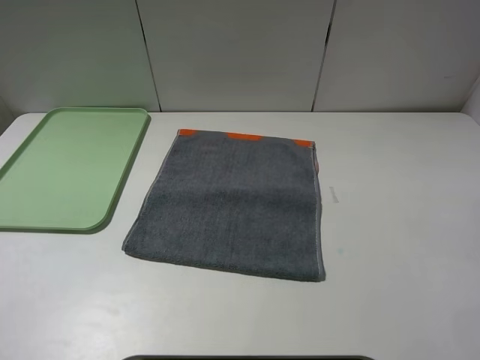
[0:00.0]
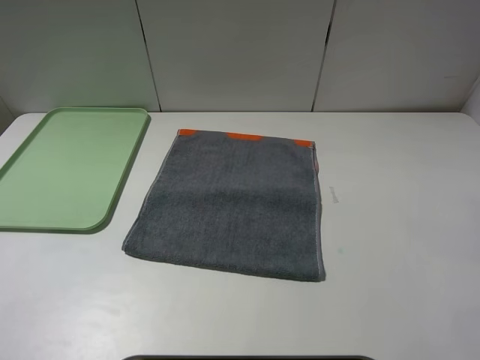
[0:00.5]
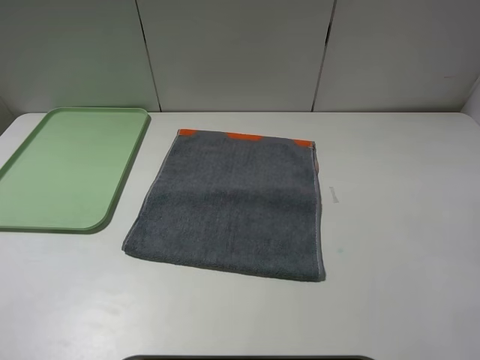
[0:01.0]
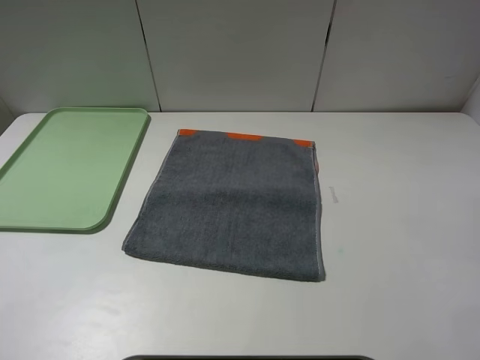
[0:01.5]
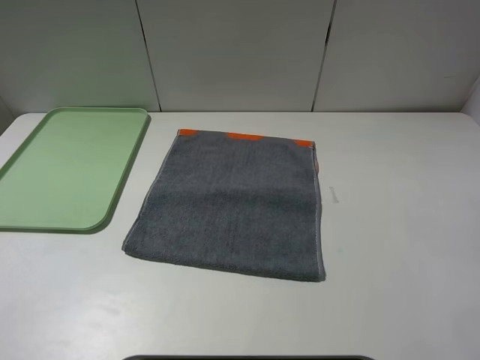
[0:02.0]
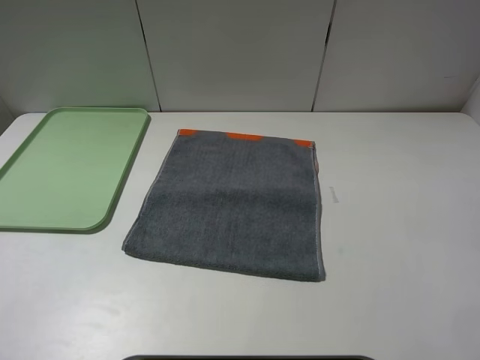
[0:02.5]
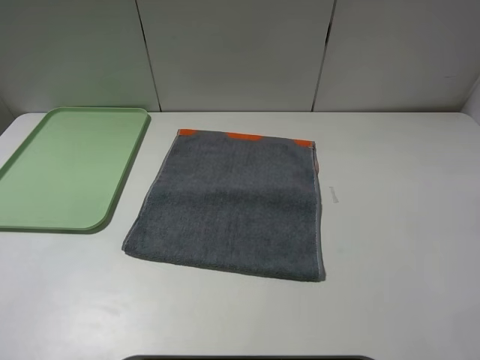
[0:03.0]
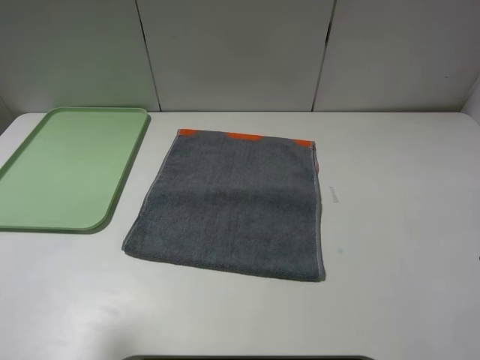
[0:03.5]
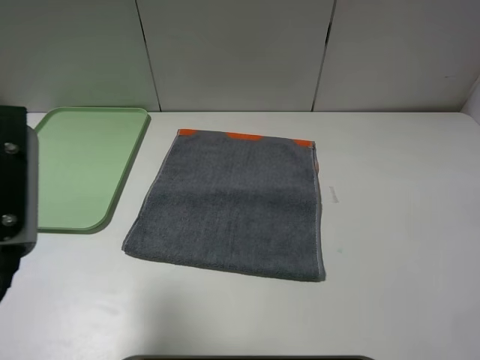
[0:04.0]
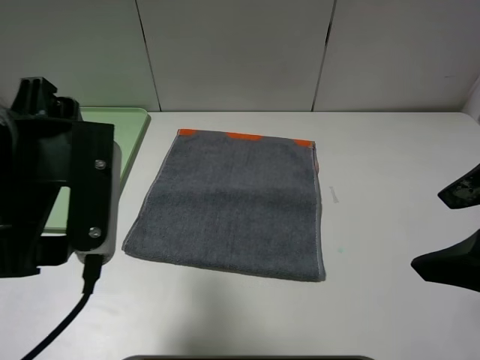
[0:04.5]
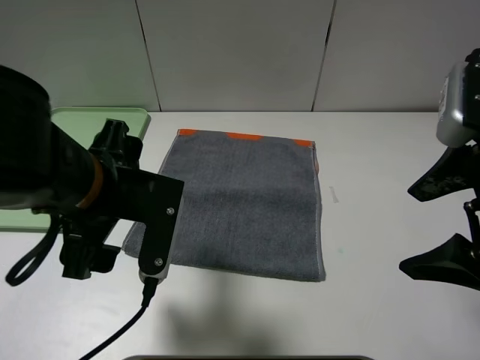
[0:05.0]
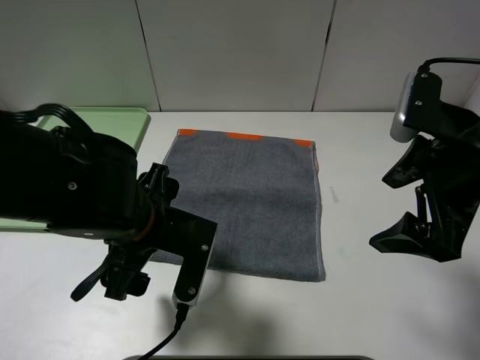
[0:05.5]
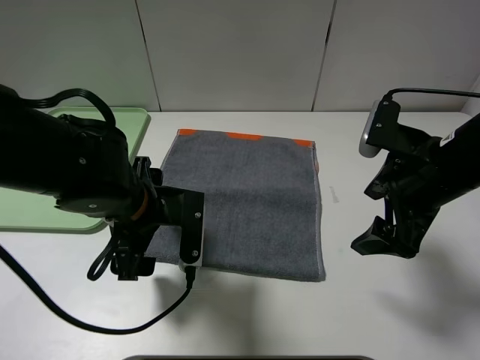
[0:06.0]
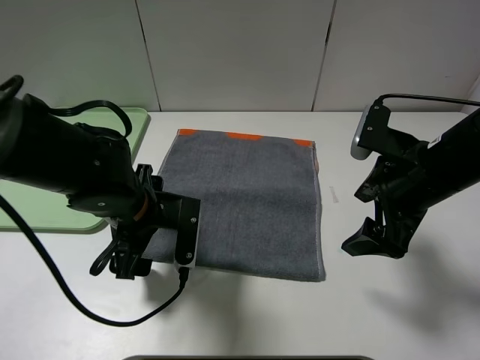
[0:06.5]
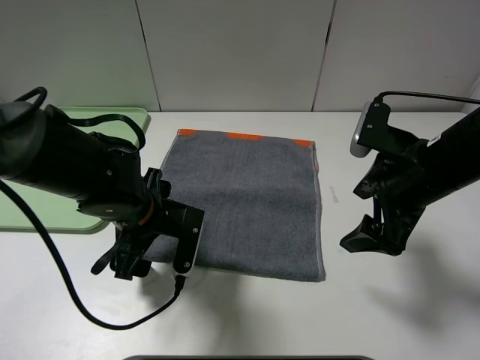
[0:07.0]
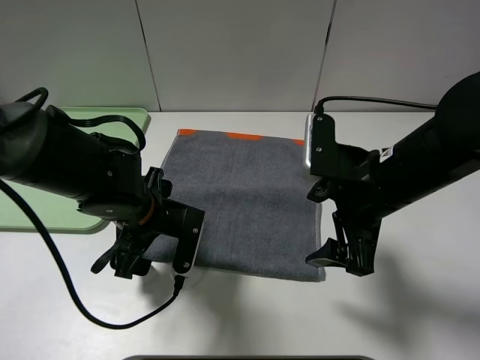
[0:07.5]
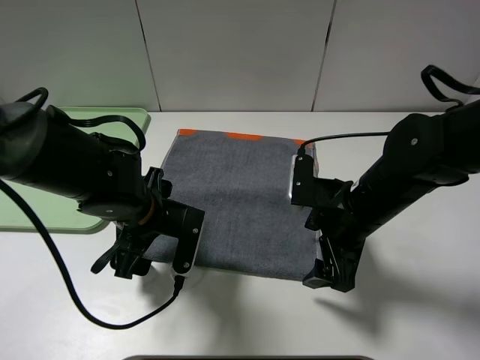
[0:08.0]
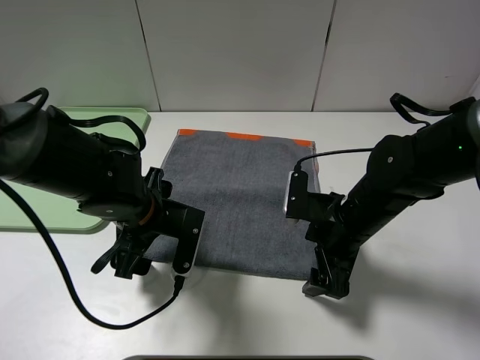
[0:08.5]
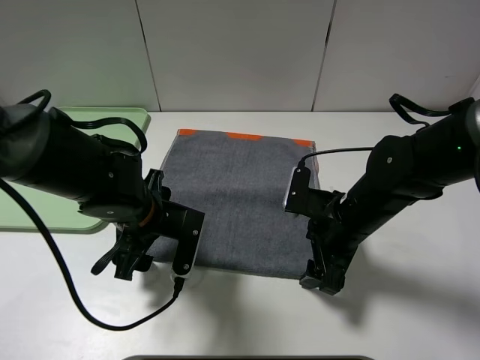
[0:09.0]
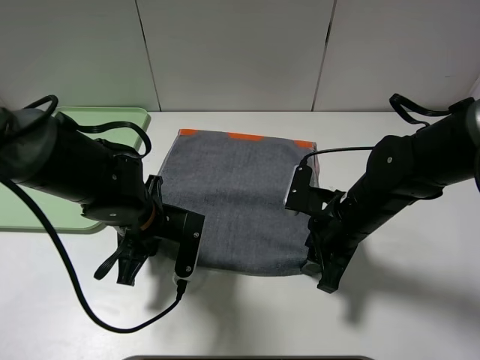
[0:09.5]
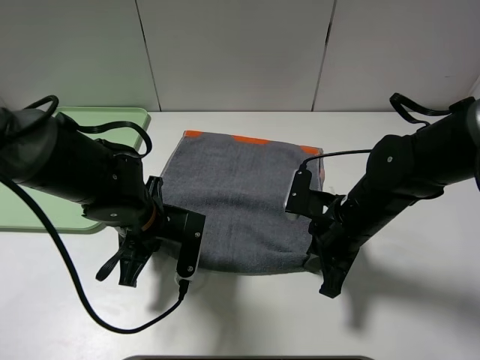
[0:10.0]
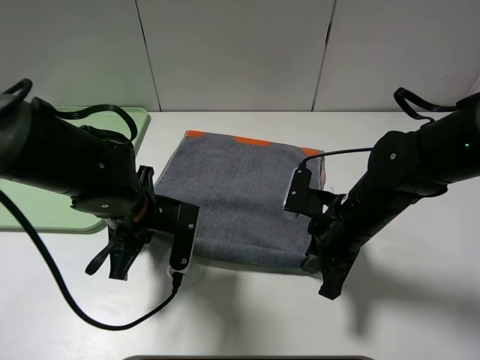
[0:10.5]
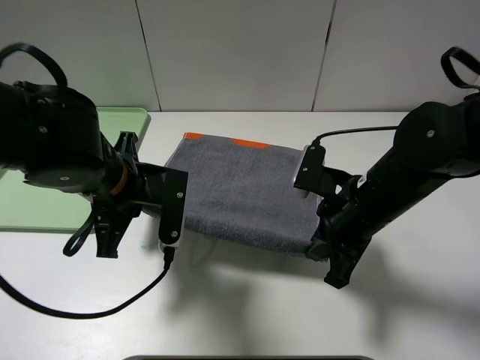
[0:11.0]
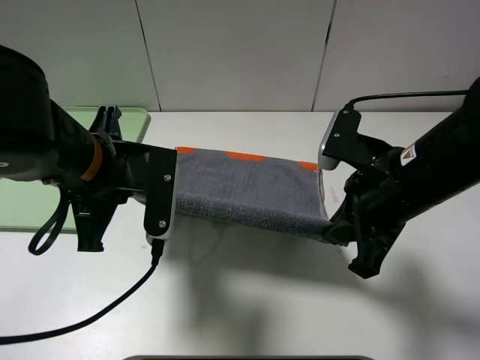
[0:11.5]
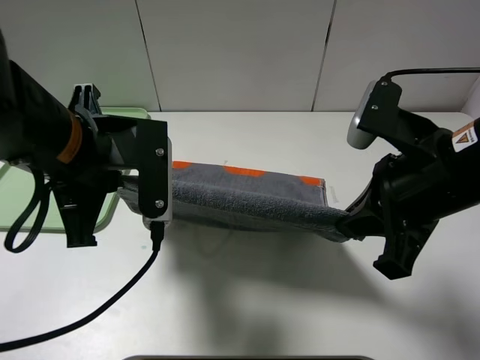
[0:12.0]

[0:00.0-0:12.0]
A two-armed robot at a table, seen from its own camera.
0:00.0 to 0:02.0: Neither gripper changes place.
0:02.0 to 0:04.0: The left gripper travels forward and to the right by approximately 15 cm, while the right gripper goes some 5 cm forward.
0:04.0 to 0:06.0: The right gripper heads forward and downward, covering about 20 cm; the left gripper shifts some 20 cm downward, to the right and forward.
0:06.0 to 0:08.0: The right gripper heads downward and to the left, covering about 10 cm.
0:08.0 to 0:10.0: The right gripper closes its fingers. Meanwhile the left gripper closes its fingers.
0:10.0 to 0:12.0: The right gripper travels upward and backward by some 15 cm; the left gripper shifts roughly 15 cm upward.

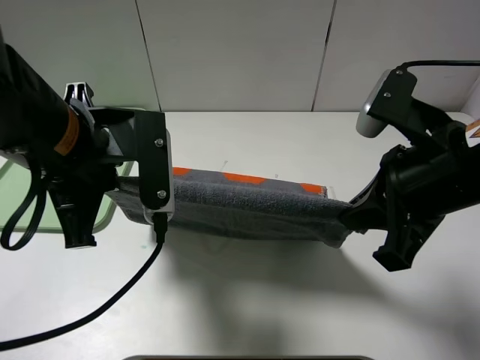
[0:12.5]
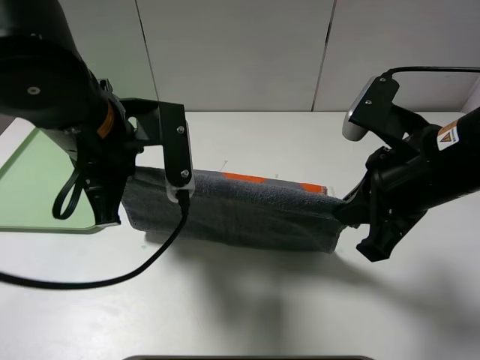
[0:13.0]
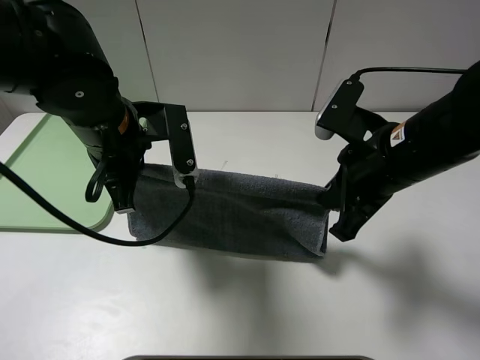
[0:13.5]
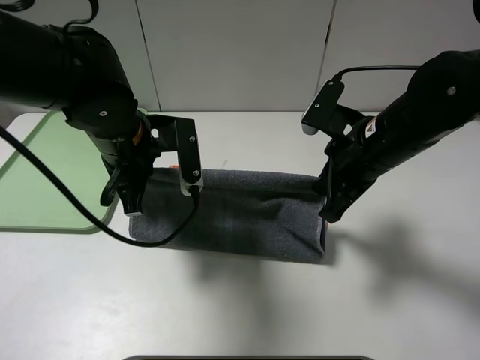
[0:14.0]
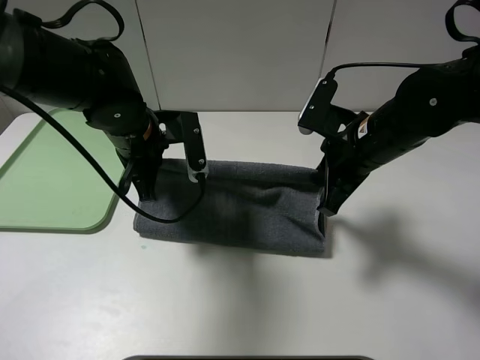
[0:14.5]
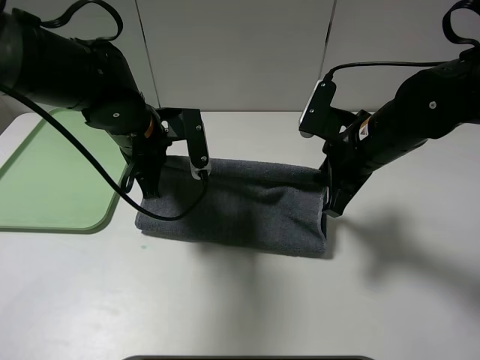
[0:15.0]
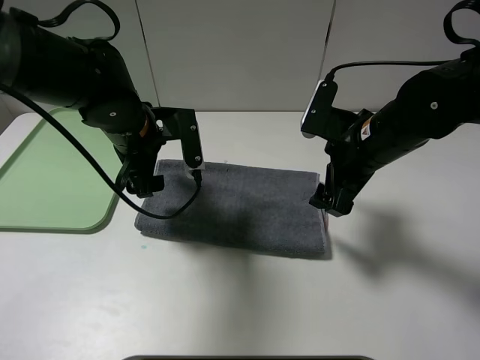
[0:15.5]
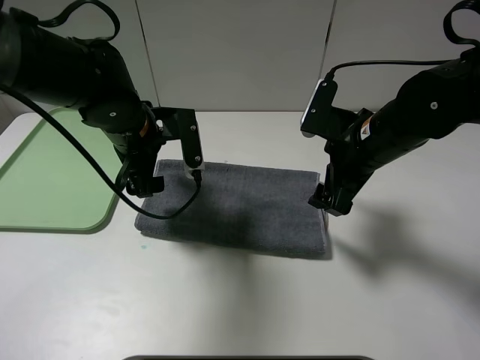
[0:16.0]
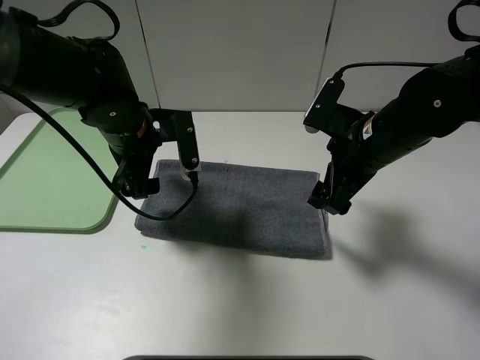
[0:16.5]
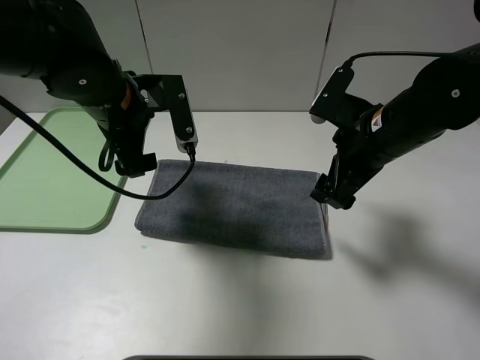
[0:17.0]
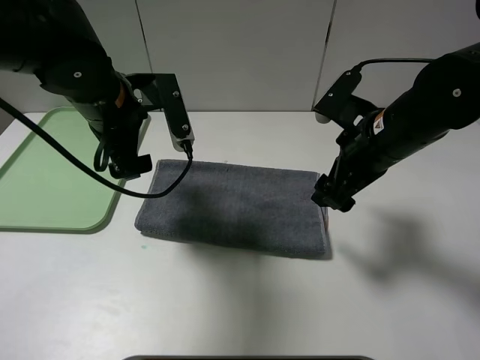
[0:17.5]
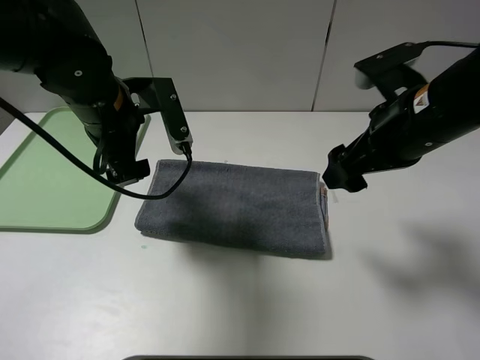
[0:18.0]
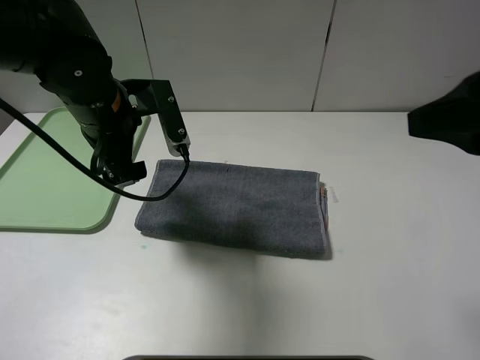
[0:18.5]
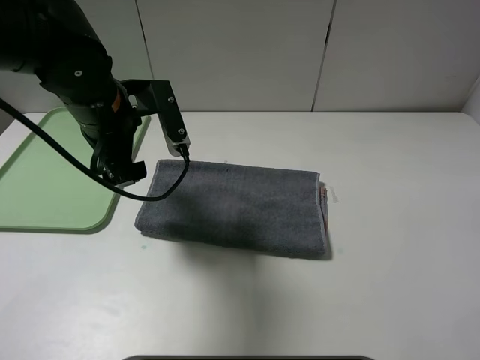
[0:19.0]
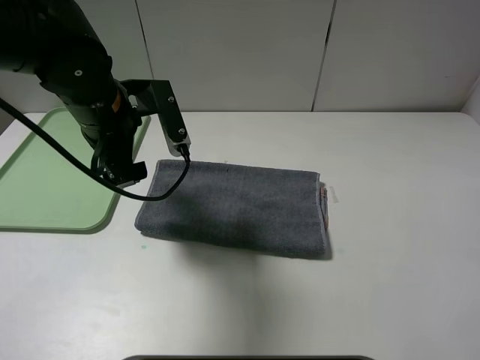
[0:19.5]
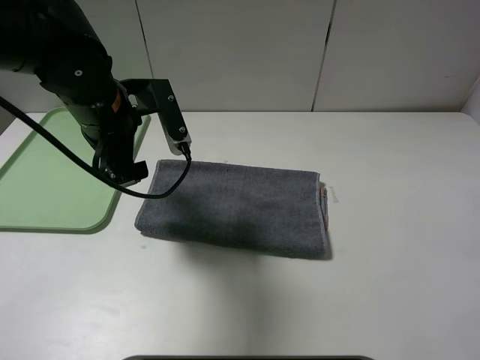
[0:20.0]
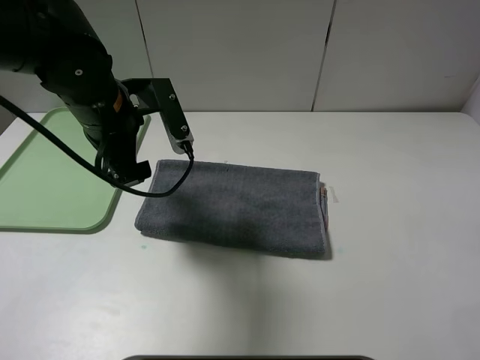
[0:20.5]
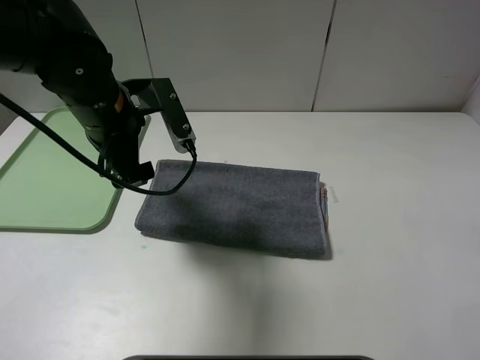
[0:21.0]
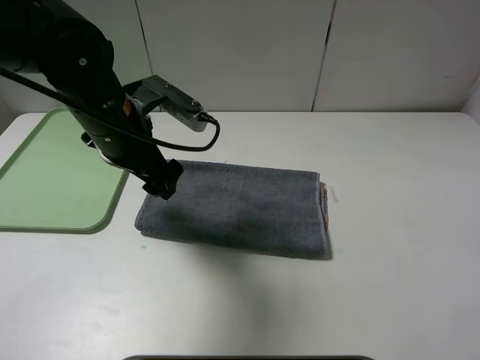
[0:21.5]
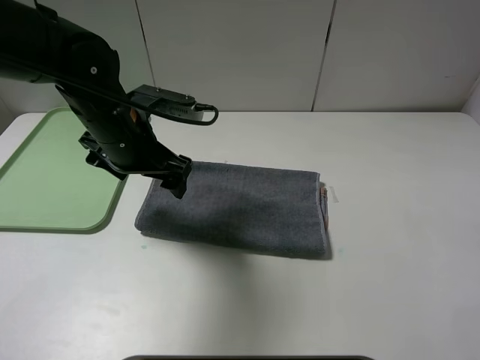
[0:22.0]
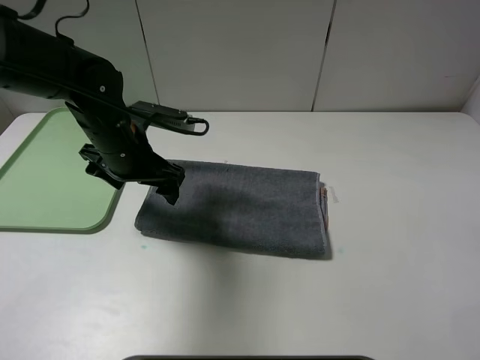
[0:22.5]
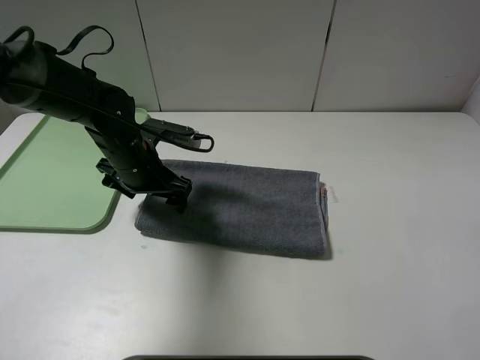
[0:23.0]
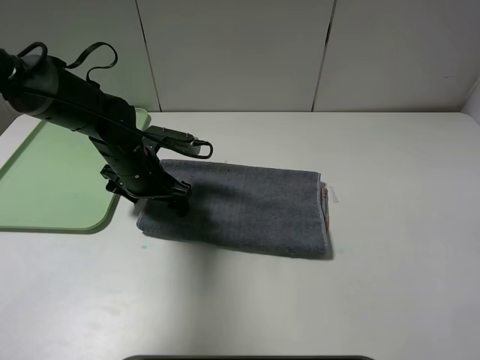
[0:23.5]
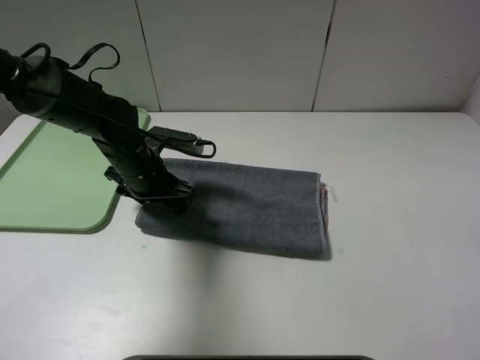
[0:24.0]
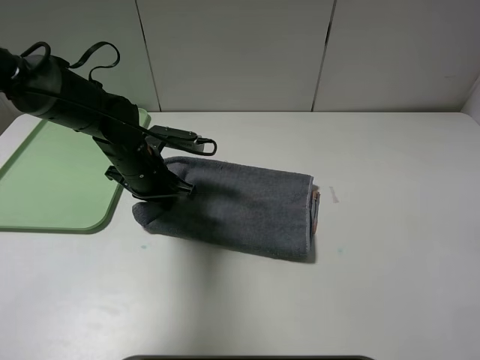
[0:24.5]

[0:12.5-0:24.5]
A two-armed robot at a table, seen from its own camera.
Step, 0:12.5 to 0:15.5: Fold the grey towel upwards.
0:12.5 to 0:14.5: Both grippers travel together forward and downward, roughly 15 cm.
0:14.5 to 0:16.5: The left gripper opens up, while the right gripper opens.
0:16.5 to 0:18.5: The left gripper moves about 5 cm. Meanwhile the right gripper shifts some 20 cm upward, backward and to the right.
0:18.5 to 0:20.5: The right gripper is displaced backward, to the right and downward by some 15 cm.
0:20.5 to 0:22.5: The left gripper moves downward, about 5 cm.
0:22.5 to 0:24.5: The left gripper heads downward, covering some 5 cm, and closes up.

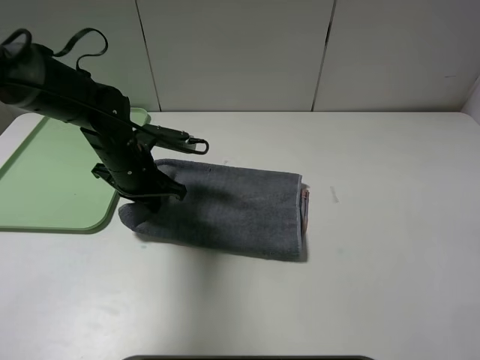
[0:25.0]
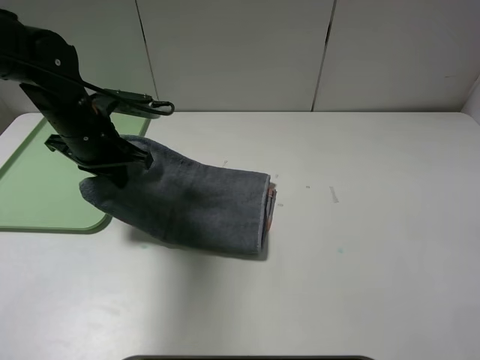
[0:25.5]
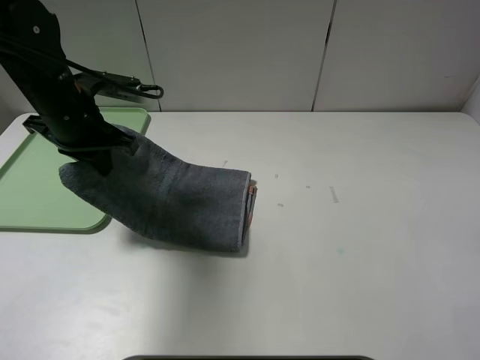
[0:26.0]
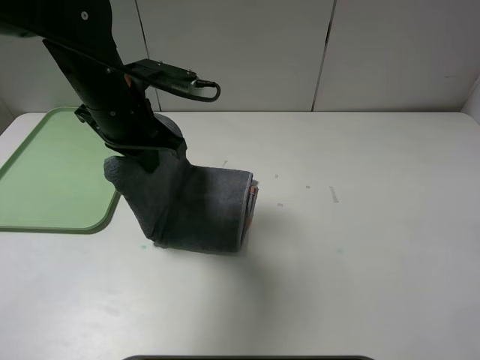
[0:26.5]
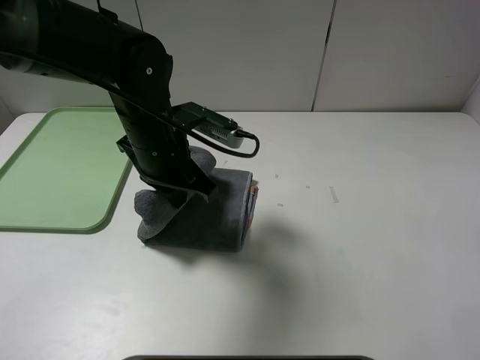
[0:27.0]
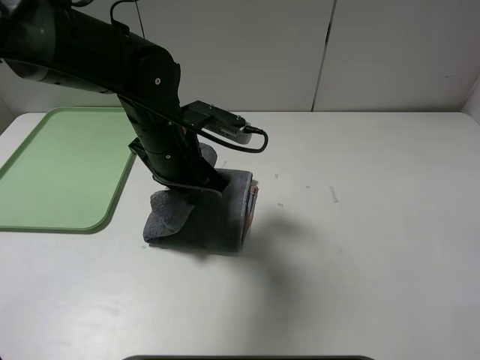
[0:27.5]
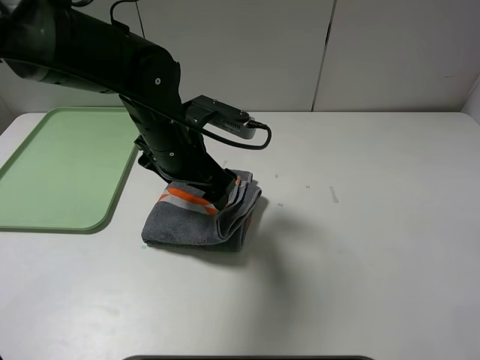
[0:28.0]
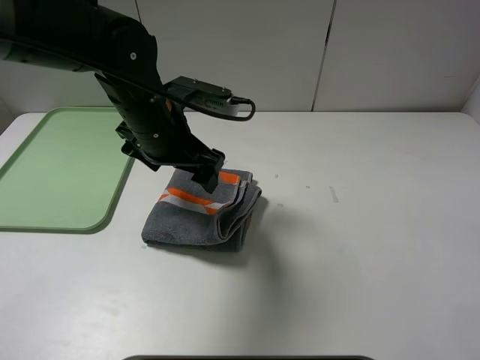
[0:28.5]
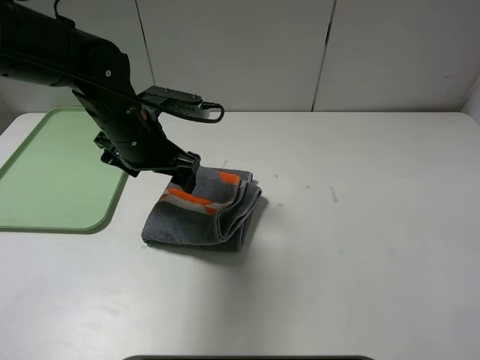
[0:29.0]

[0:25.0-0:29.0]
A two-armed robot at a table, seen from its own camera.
Step, 0:25.0 to 0:28.0: Fold the grey towel from left to right with left gripper.
0:25.0 to 0:27.0: The left gripper is displaced to the right and upward by about 10 cm.
0:27.0 to 0:29.0: The left gripper moves some 5 cm, and opens its fingers.
